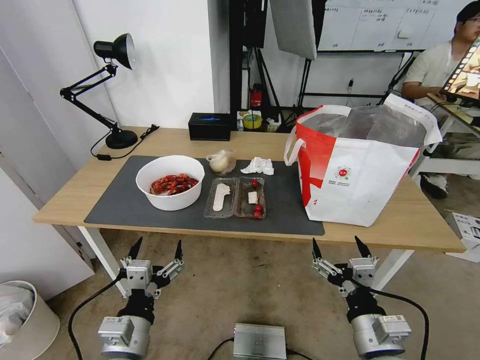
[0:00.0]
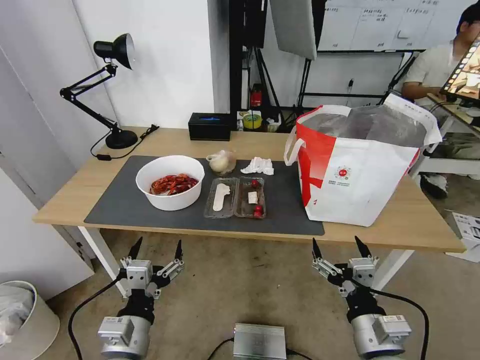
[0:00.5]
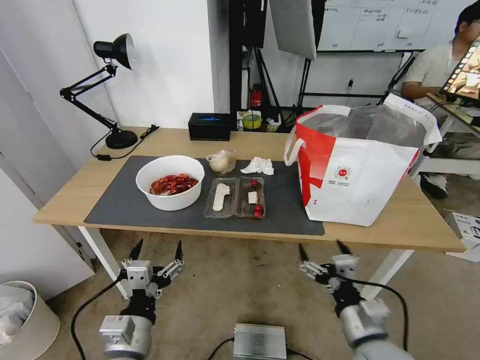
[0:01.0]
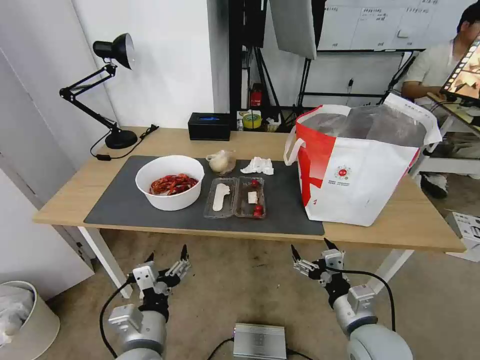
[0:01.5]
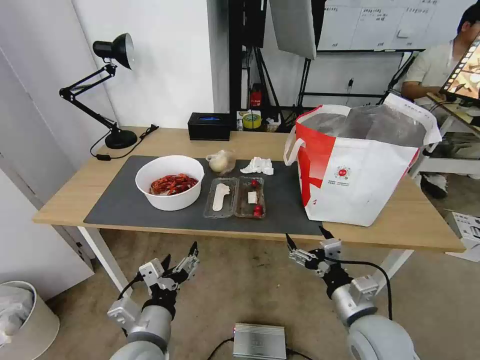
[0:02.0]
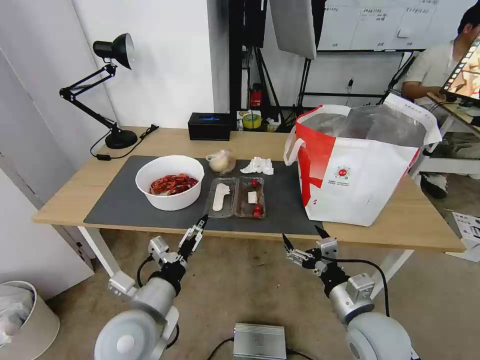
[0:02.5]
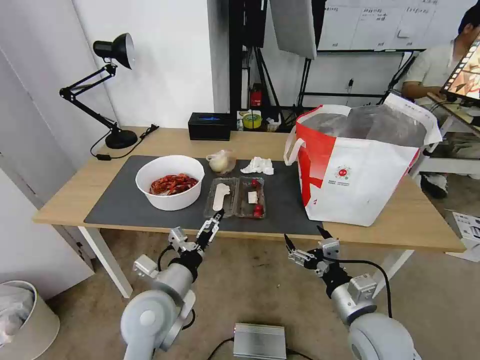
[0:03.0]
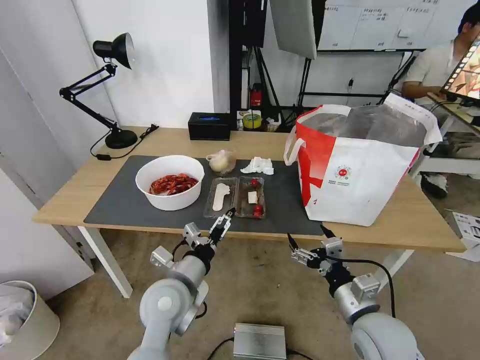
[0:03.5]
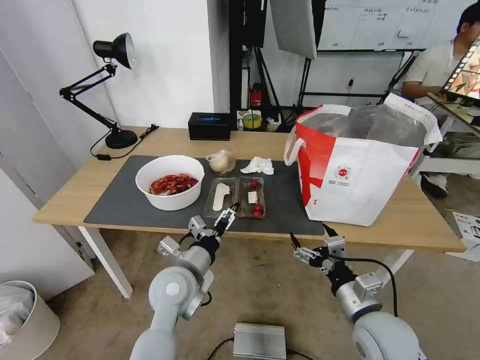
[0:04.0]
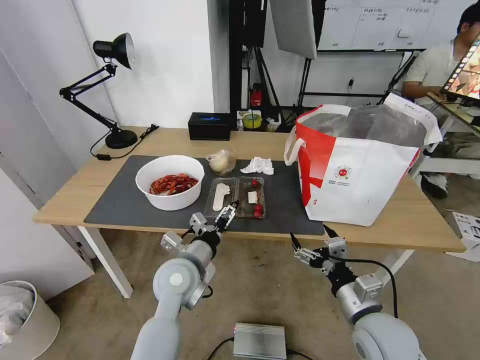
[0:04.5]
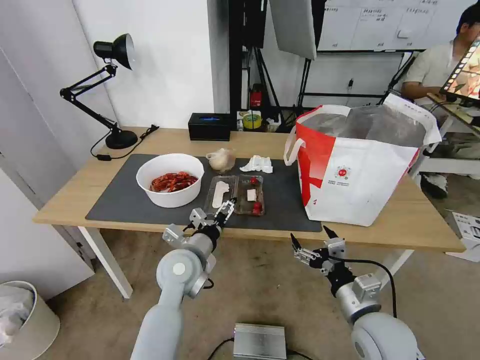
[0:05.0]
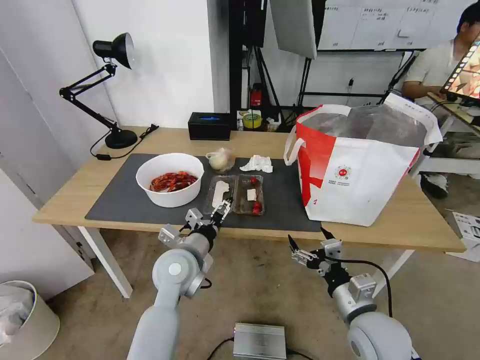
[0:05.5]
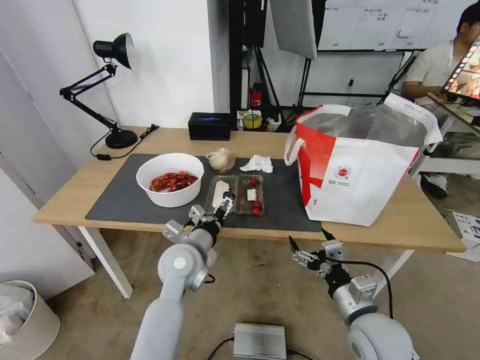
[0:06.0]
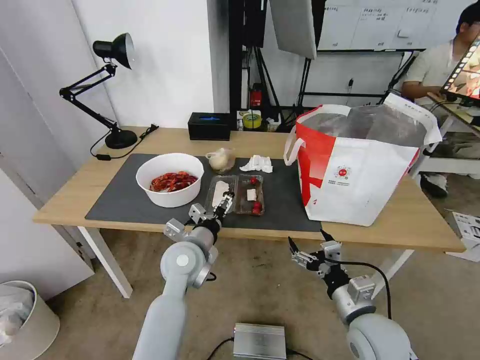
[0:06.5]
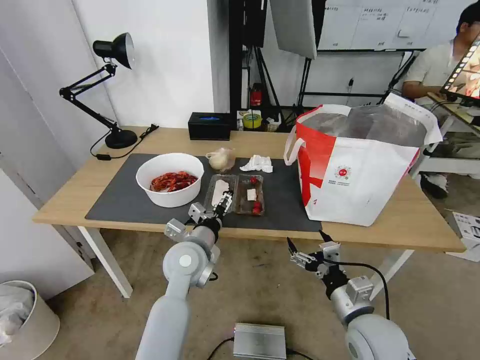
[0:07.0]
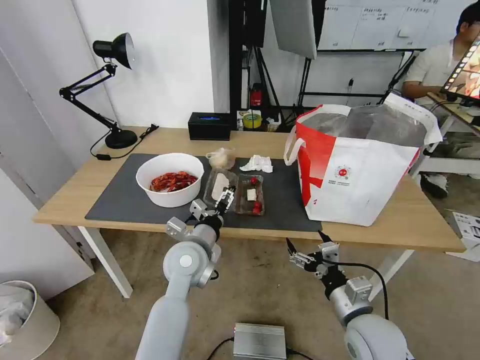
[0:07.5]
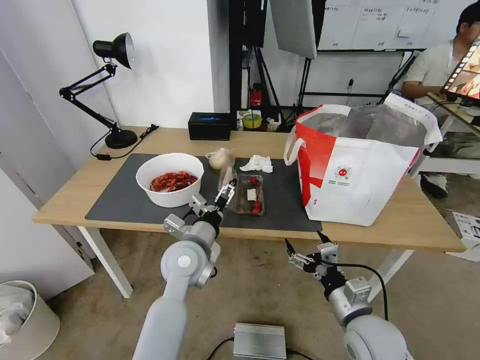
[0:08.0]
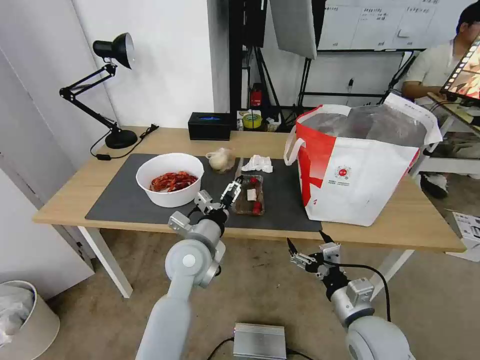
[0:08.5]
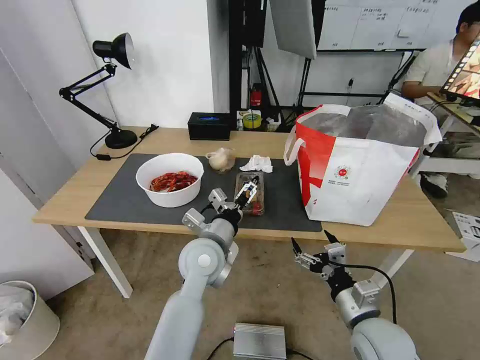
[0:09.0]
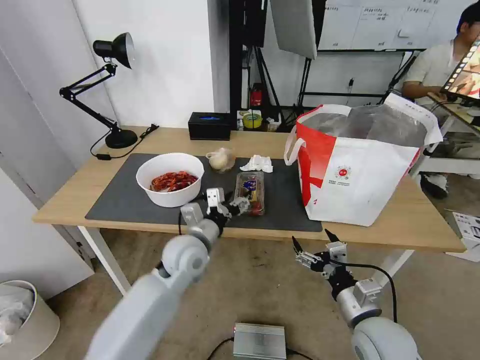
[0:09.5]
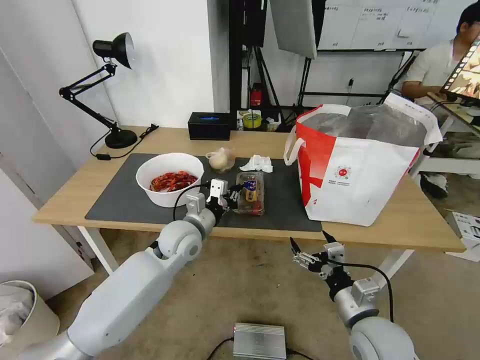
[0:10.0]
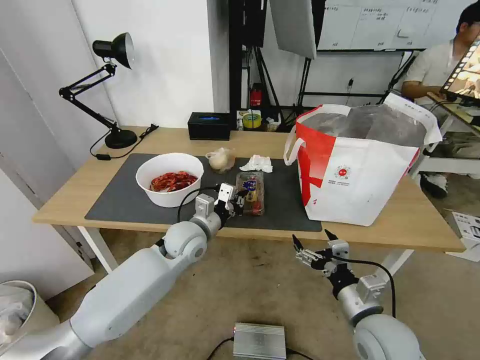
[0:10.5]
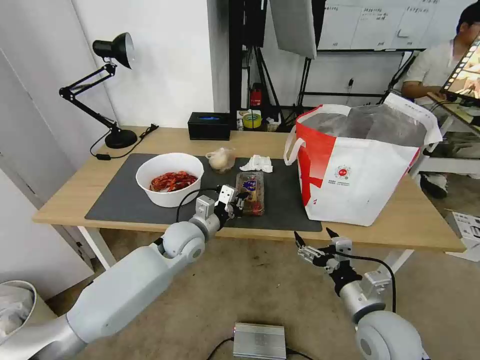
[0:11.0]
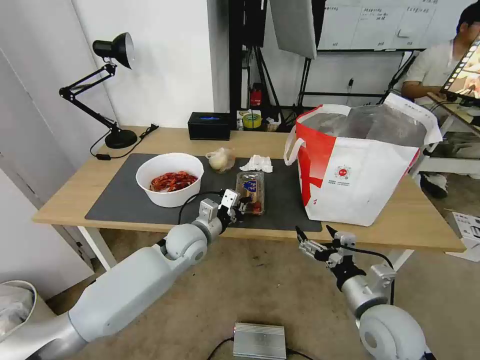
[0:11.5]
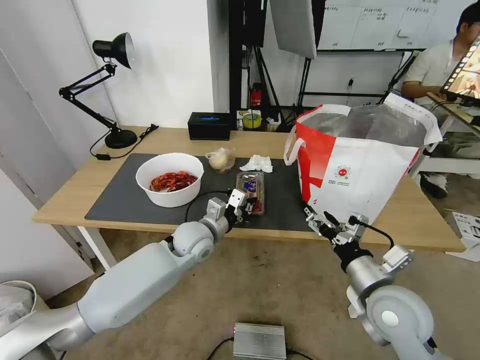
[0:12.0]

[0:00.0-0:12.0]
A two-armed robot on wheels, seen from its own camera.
Task of the whole recording: Pick up the trash from the table and place it into the takeout bag.
0:02.0 to 0:04.0: The left gripper moves forward, approximately 15 cm.
0:04.0 to 0:08.0: The grippers stay close to where they were, moving slightly.
0:08.0 to 0:10.0: The left gripper moves forward, approximately 5 cm, and closes.
0:10.0 to 0:12.0: The right gripper is displaced upward by about 5 cm.

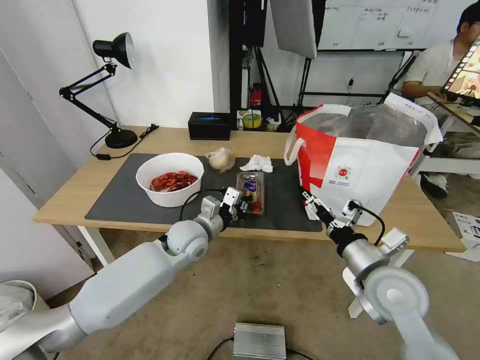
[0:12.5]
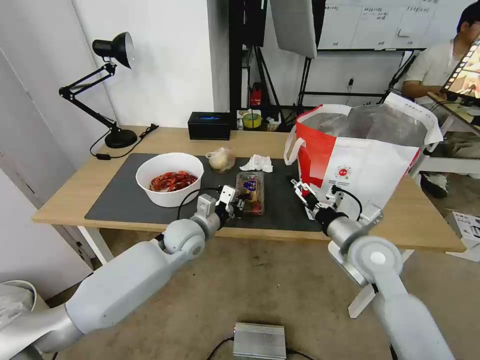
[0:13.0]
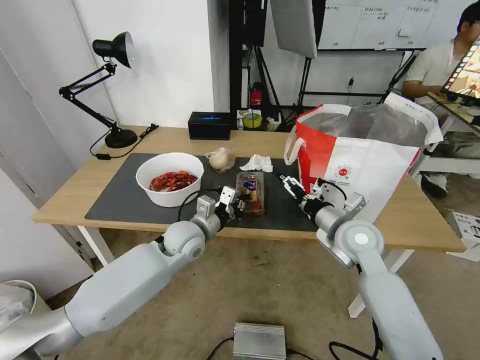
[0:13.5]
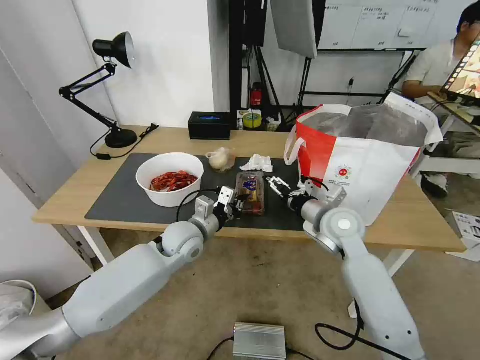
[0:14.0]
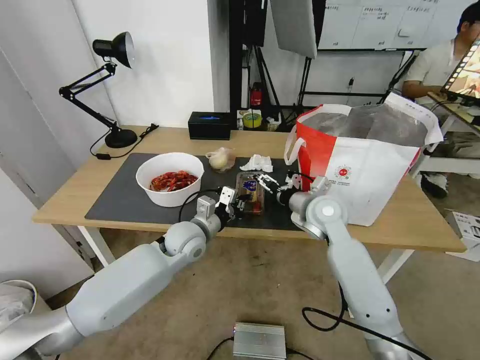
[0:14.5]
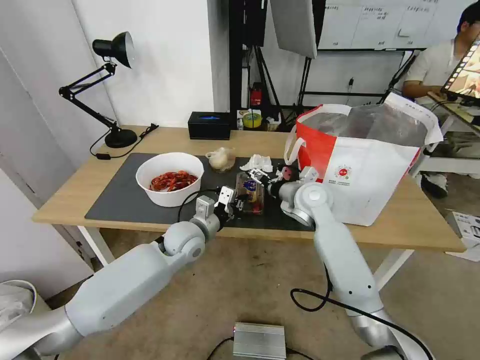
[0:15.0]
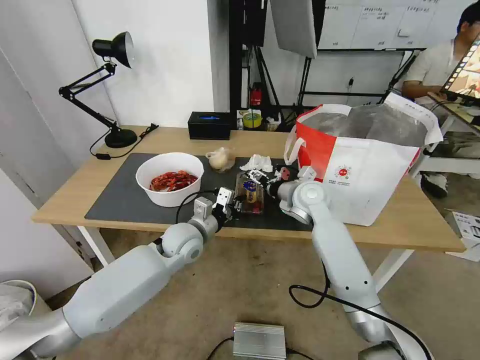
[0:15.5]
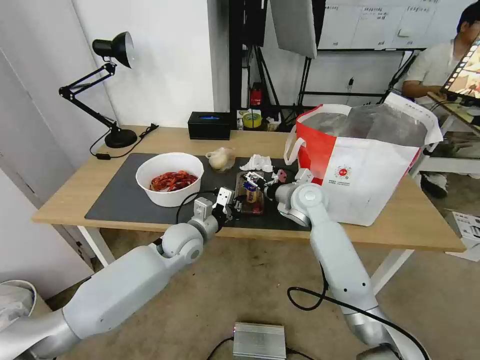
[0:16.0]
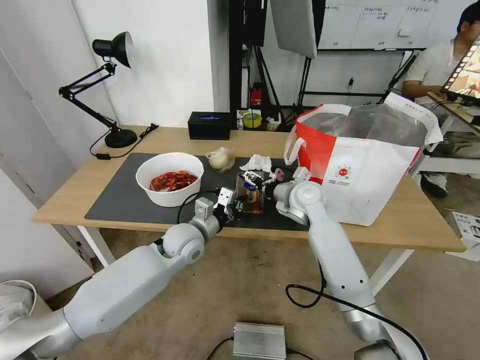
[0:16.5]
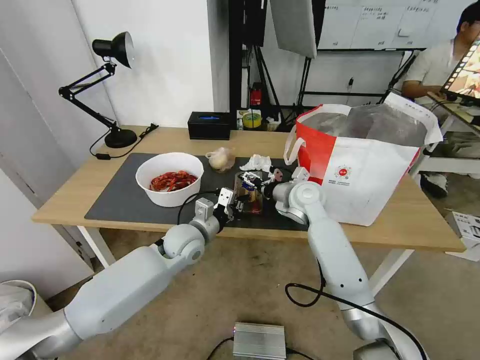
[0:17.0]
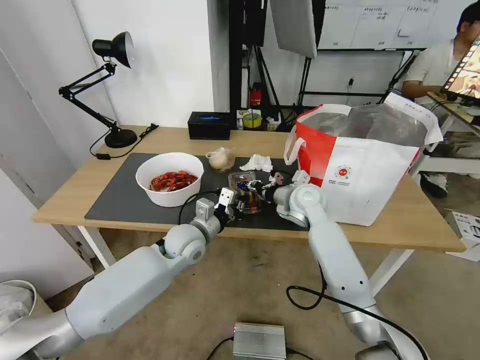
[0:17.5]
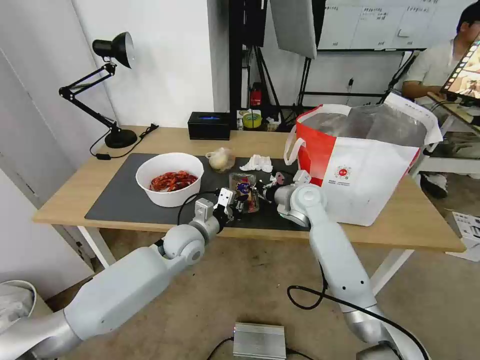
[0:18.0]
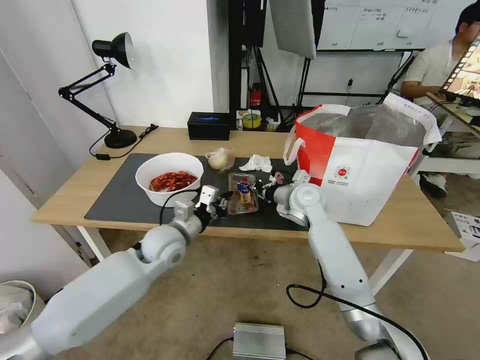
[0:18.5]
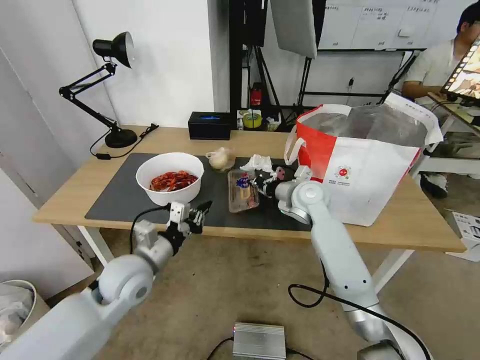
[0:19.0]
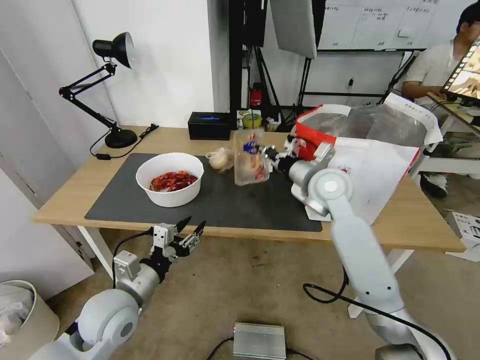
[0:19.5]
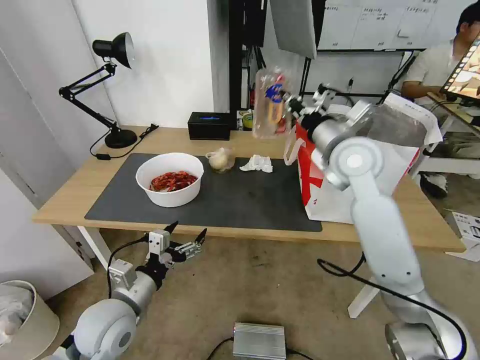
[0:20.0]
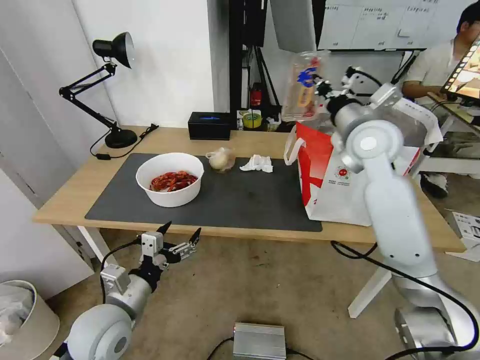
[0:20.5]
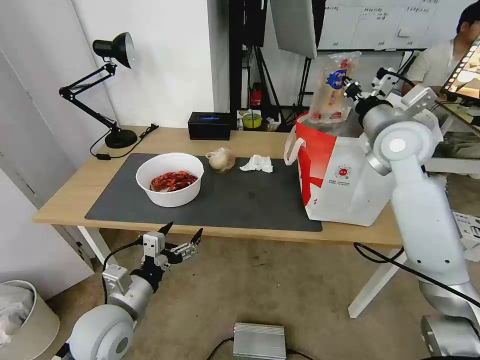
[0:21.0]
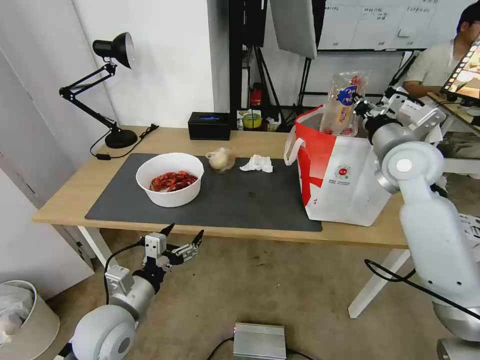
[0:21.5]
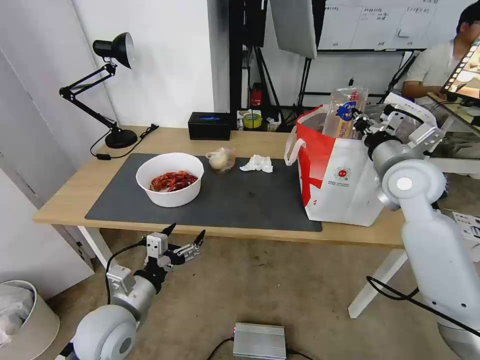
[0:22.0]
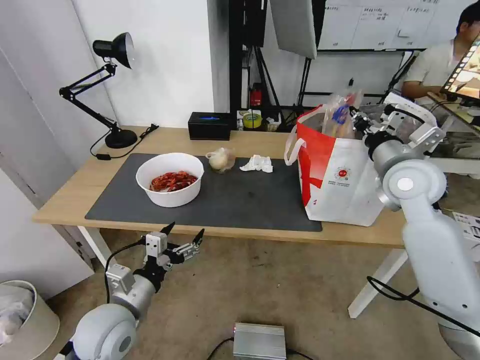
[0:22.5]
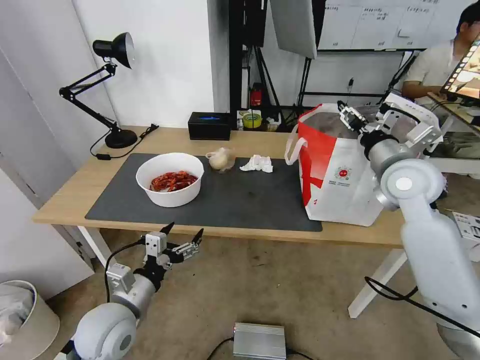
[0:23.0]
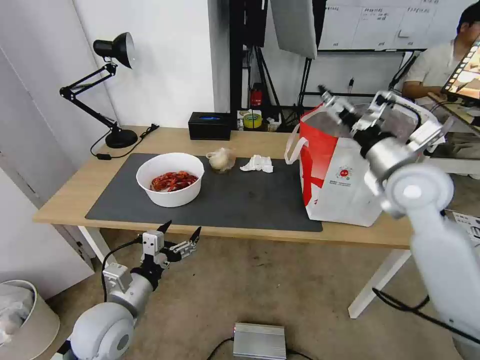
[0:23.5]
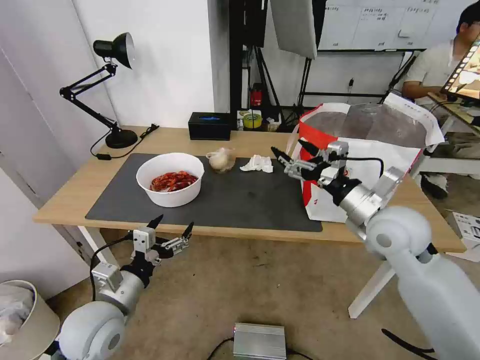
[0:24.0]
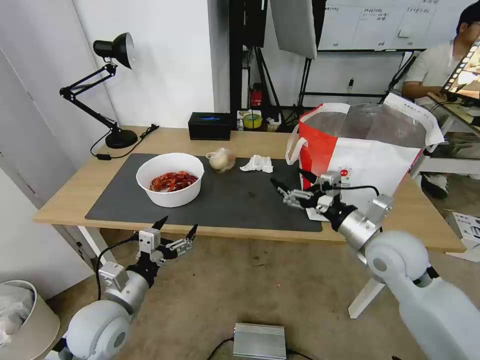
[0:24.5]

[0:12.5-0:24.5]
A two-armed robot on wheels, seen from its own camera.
Task of the whole recording: Pick up the trash from the table and place it into the takeout bag.
0:12.5 to 0:14.5: The right gripper is displaced forward by roughly 20 cm.
0:14.5 to 0:16.5: The right gripper travels forward by some 5 cm.
0:16.5 to 0:18.5: The right gripper closes up.
0:18.5 to 0:20.5: The left gripper moves backward and to the left, approximately 20 cm, and opens. Meanwhile the right gripper goes roughly 20 cm upward and to the right.
0:20.5 to 0:22.5: The right gripper heads to the right, backward and downward, covering roughly 10 cm.
0:22.5 to 0:24.5: The right gripper moves backward and downward, roughly 15 cm, and opens.

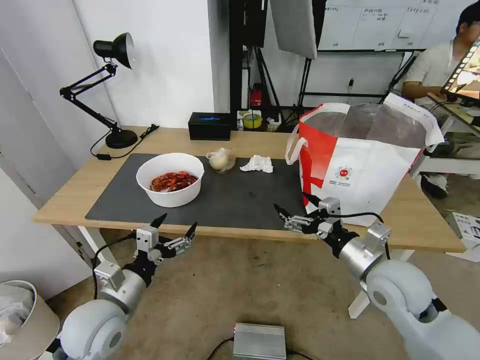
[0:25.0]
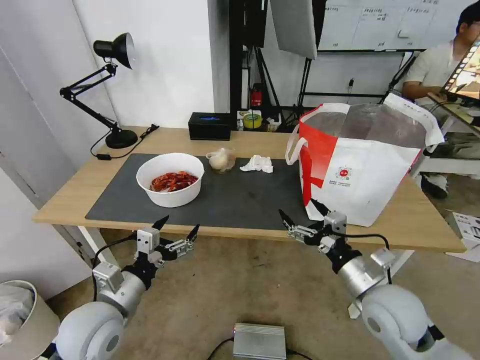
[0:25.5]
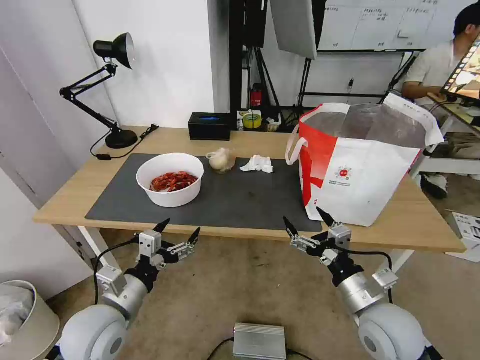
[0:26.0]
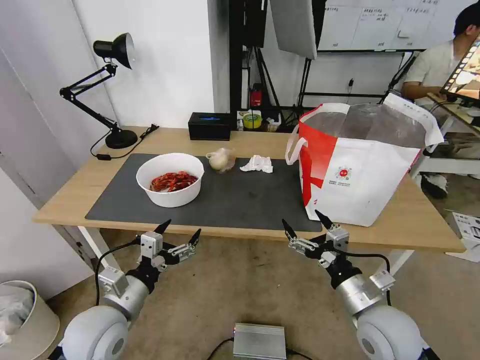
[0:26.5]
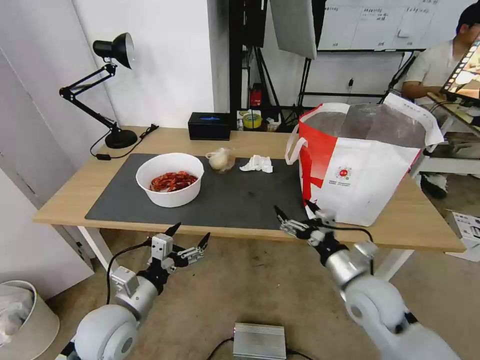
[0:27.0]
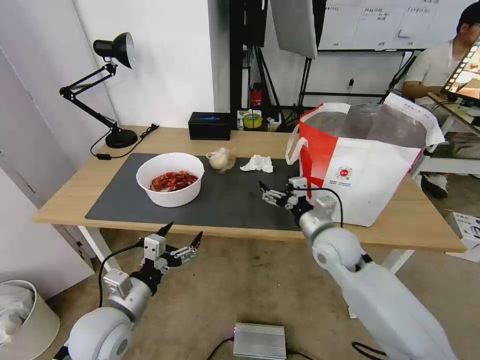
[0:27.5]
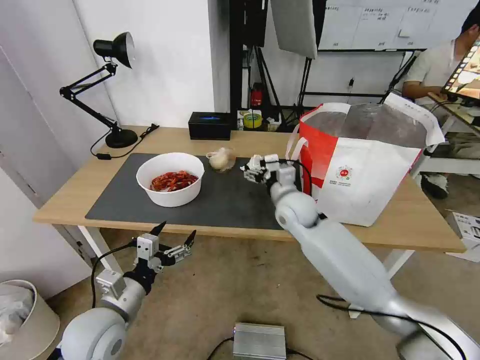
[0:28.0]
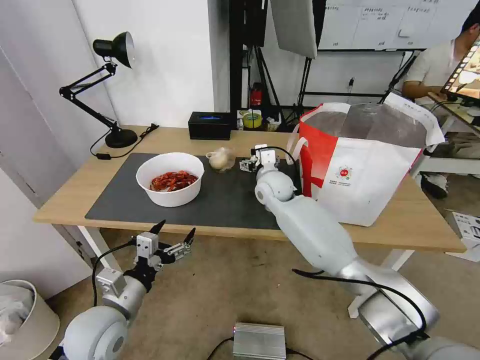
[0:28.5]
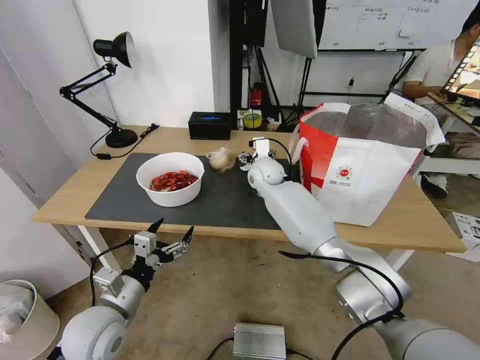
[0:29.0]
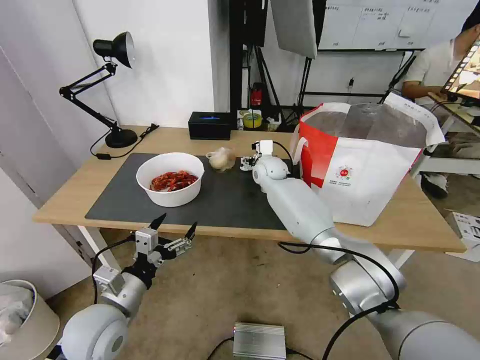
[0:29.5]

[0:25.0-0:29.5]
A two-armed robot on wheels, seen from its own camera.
Task of the whole recording: Pick up the trash from the table and place it into the takeout bag.
0:27.0 to 0:29.5: The right gripper travels forward and to the left by about 40 cm.
